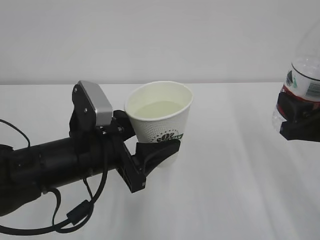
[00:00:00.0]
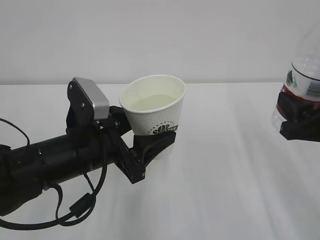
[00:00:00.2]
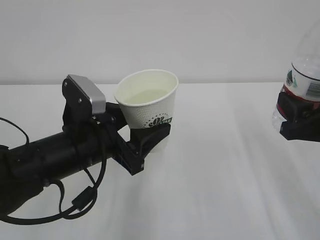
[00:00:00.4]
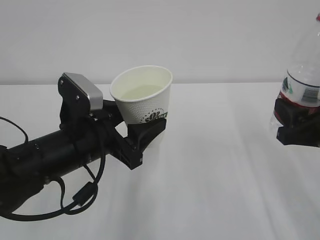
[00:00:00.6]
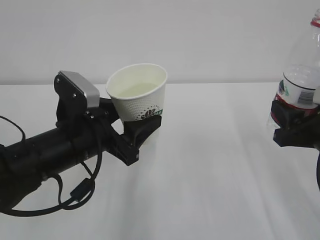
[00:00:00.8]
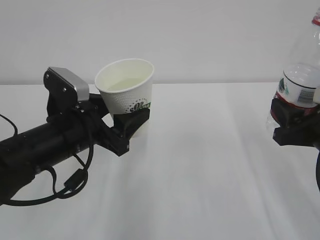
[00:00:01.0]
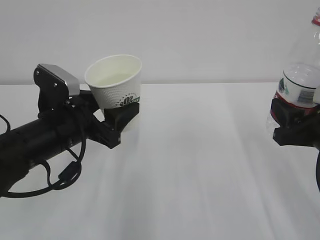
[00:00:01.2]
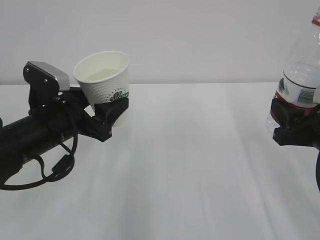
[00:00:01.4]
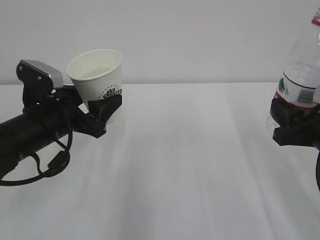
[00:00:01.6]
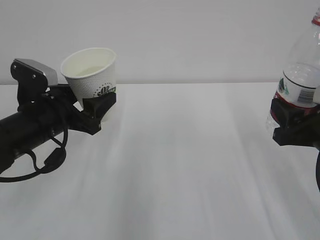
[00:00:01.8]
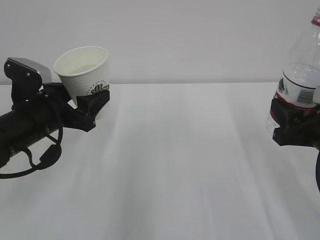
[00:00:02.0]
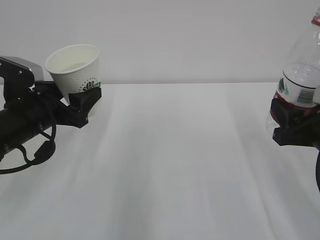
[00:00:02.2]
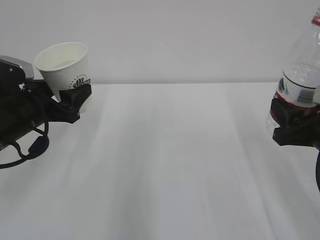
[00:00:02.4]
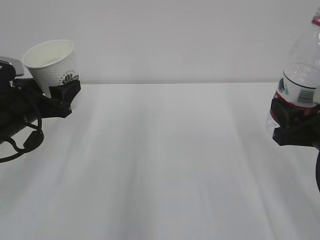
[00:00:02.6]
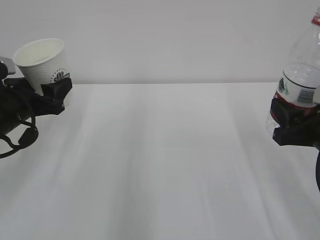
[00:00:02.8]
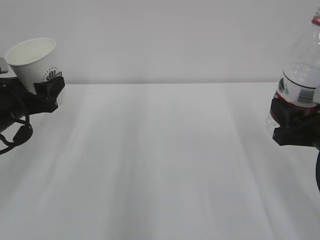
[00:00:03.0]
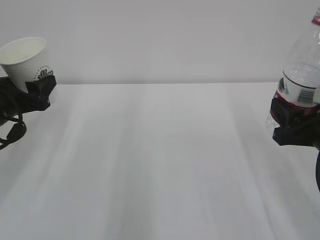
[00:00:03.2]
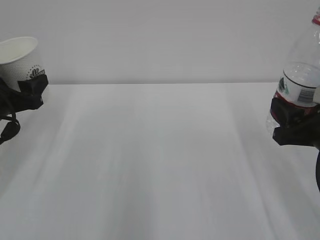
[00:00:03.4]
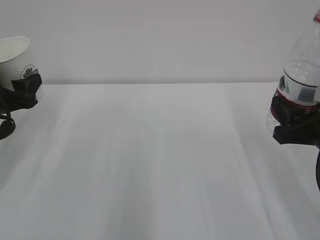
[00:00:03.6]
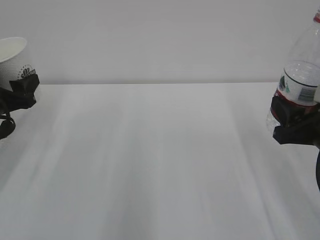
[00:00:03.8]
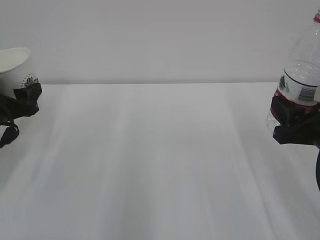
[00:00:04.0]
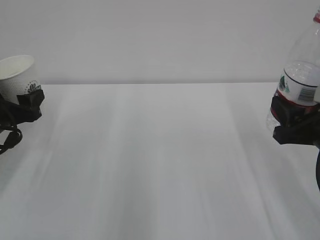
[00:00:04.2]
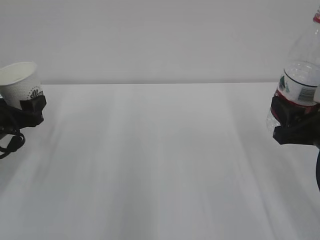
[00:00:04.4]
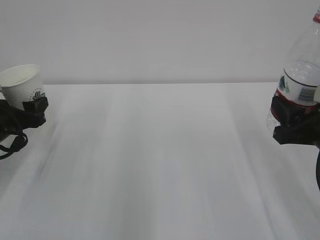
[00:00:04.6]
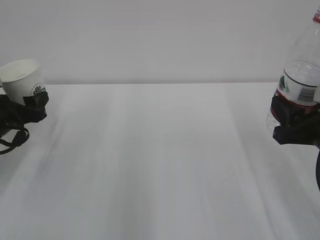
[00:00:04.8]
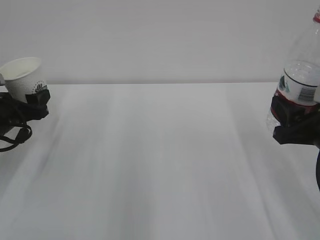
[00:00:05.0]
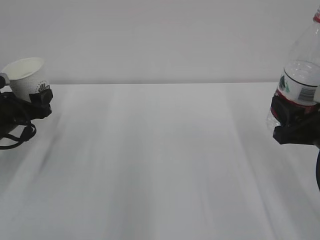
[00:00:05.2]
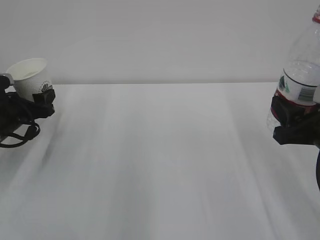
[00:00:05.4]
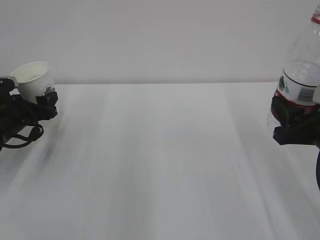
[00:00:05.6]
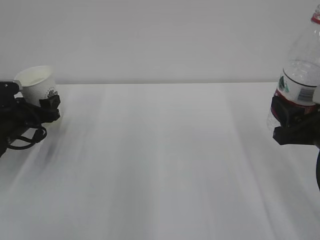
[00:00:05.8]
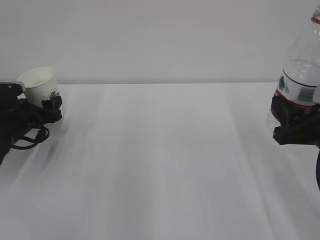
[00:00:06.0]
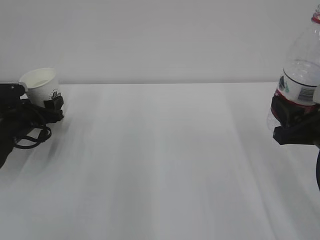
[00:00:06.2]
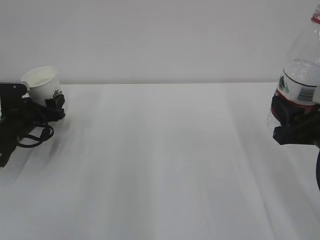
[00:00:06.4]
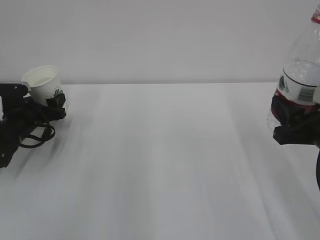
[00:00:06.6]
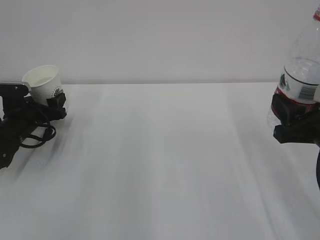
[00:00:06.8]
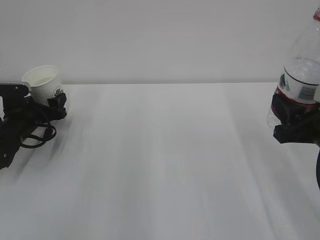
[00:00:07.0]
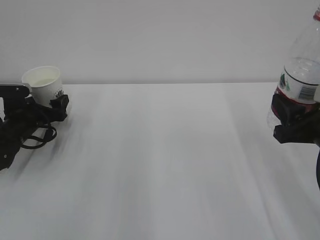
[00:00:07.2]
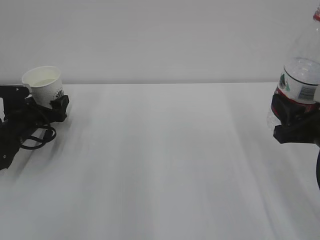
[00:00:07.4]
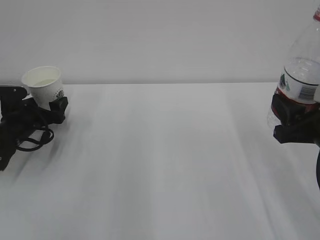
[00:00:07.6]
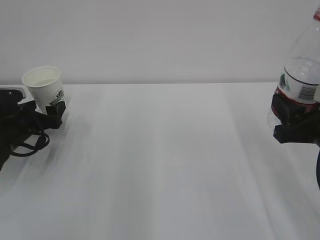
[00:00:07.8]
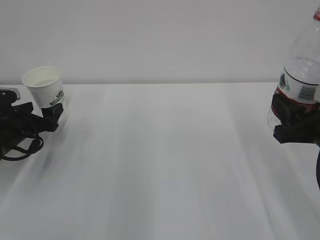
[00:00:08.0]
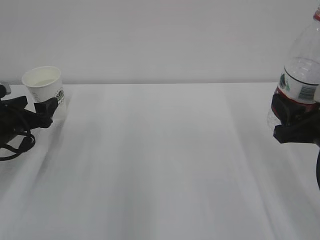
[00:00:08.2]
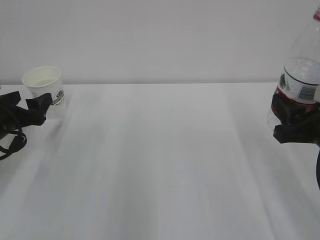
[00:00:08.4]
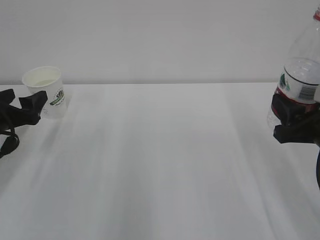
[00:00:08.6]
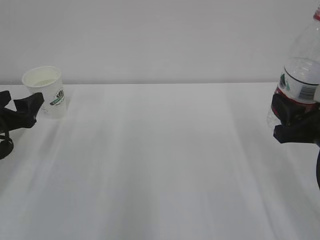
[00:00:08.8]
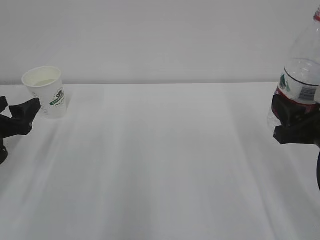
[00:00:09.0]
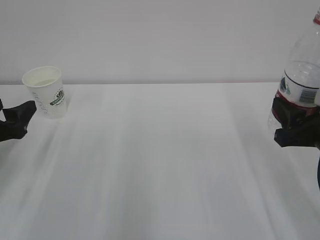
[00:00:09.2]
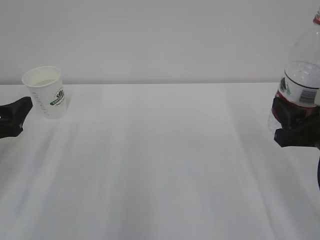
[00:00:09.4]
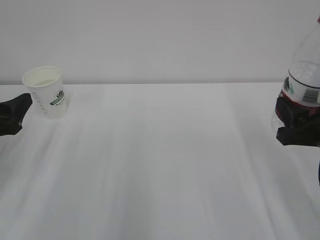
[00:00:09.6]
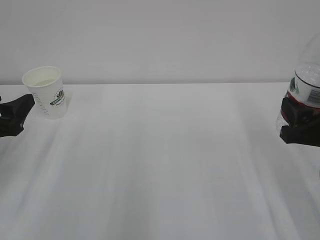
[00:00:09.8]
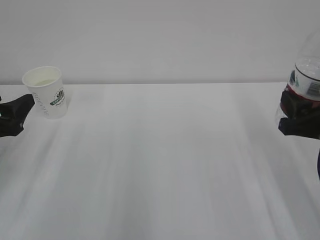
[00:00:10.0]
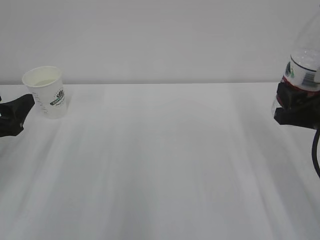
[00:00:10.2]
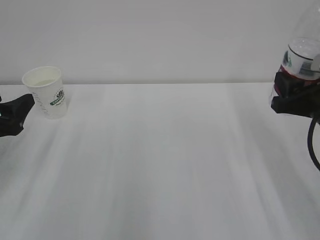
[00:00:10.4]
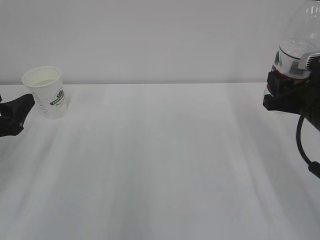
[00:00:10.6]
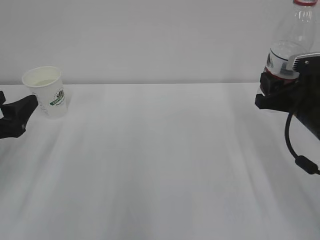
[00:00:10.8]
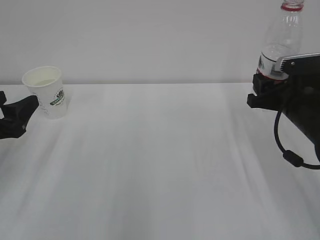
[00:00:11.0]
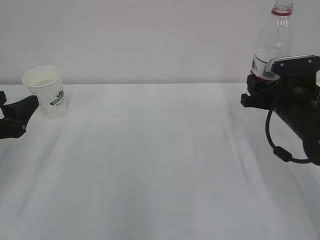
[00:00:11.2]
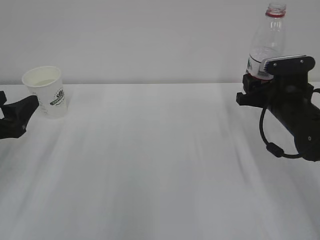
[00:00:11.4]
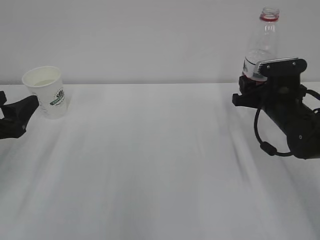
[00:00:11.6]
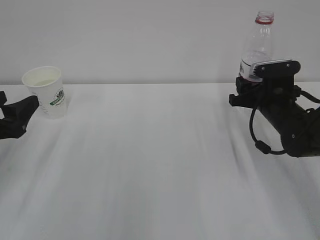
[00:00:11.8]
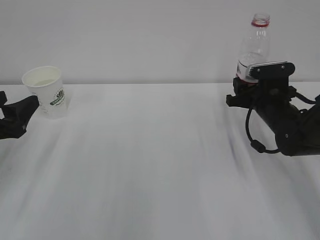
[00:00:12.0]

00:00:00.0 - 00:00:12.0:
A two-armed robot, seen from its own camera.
00:00:00.0 - 00:00:01.6: The left gripper heads to the left and forward, covering approximately 10 cm.
00:00:01.6 - 00:00:03.0: The left gripper is displaced to the left by approximately 10 cm.
00:00:03.0 - 00:00:04.4: The left gripper shifts by roughly 5 cm.
00:00:04.4 - 00:00:06.0: The left gripper goes about 10 cm forward and downward.
00:00:06.0 - 00:00:07.6: The left gripper opens its fingers.
00:00:07.6 - 00:00:09.0: The left gripper shifts about 15 cm backward and upward.
00:00:09.0 - 00:00:10.4: There are only small adjustments of the grippers.
00:00:10.4 - 00:00:12.0: The right gripper is displaced forward and downward by about 15 cm.

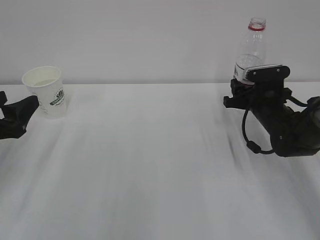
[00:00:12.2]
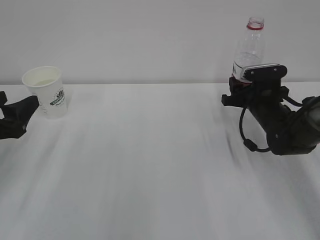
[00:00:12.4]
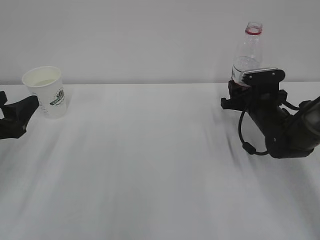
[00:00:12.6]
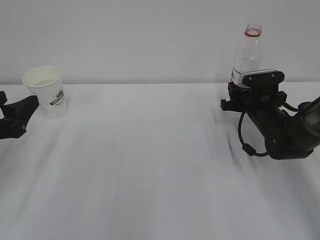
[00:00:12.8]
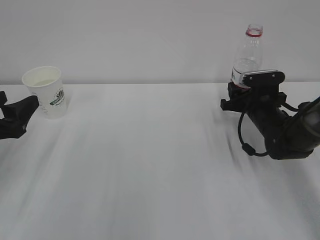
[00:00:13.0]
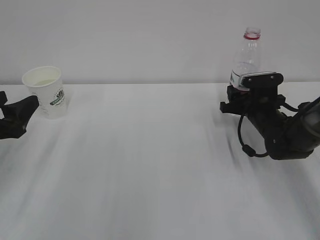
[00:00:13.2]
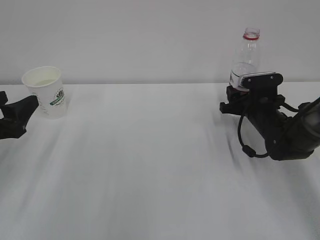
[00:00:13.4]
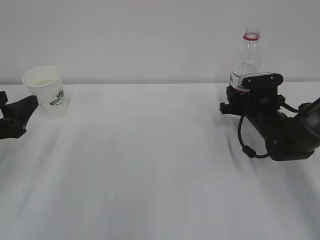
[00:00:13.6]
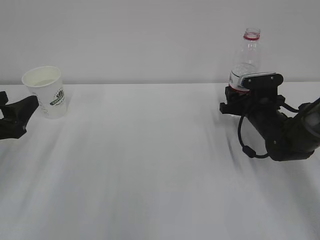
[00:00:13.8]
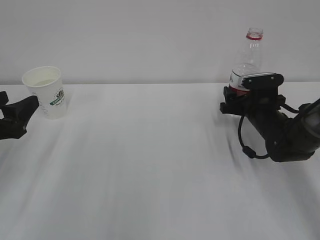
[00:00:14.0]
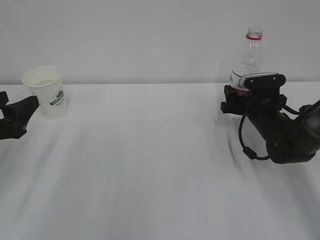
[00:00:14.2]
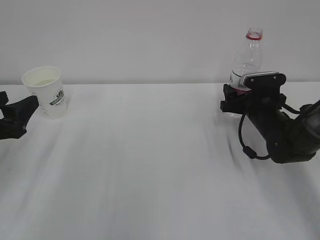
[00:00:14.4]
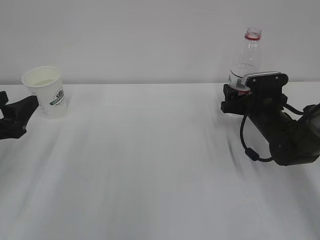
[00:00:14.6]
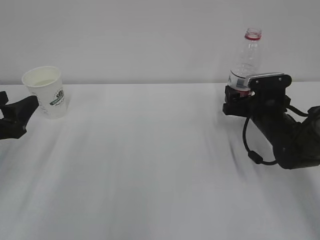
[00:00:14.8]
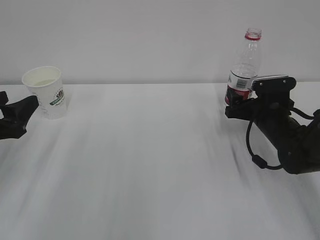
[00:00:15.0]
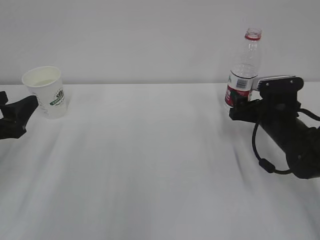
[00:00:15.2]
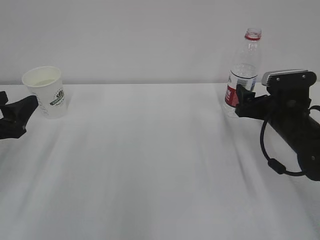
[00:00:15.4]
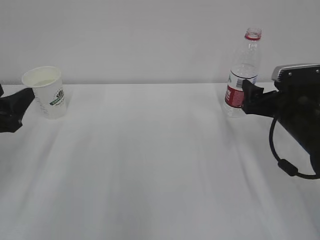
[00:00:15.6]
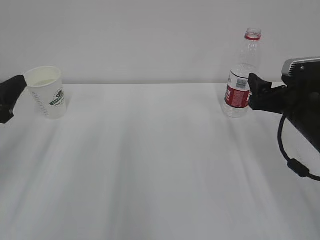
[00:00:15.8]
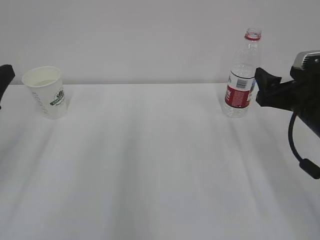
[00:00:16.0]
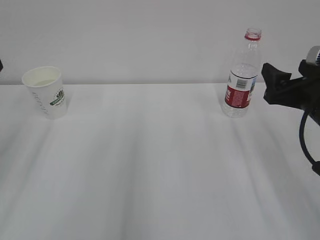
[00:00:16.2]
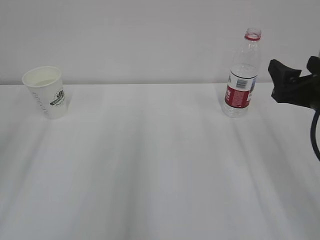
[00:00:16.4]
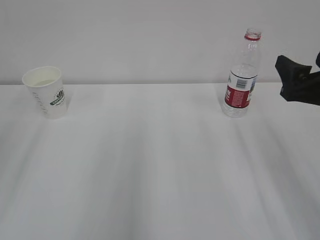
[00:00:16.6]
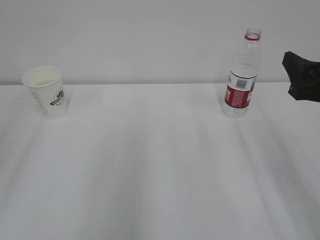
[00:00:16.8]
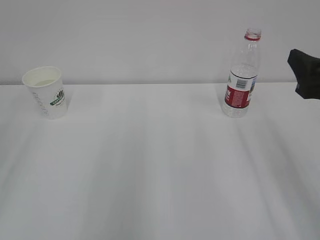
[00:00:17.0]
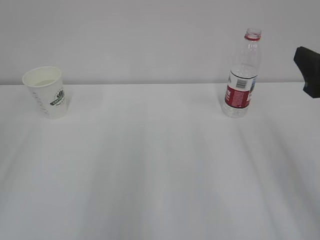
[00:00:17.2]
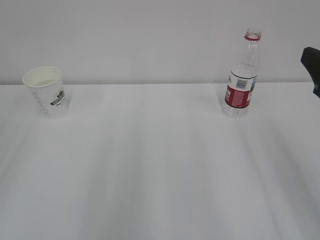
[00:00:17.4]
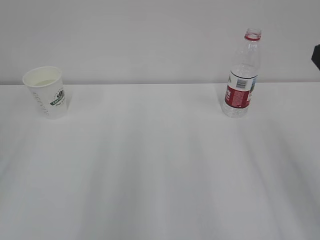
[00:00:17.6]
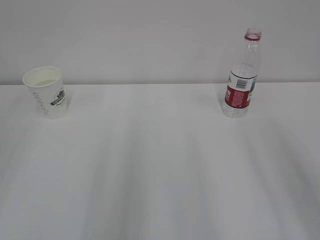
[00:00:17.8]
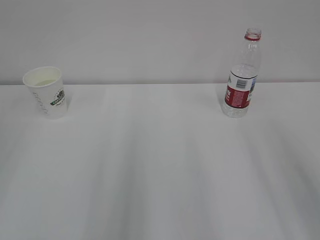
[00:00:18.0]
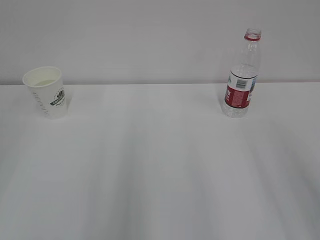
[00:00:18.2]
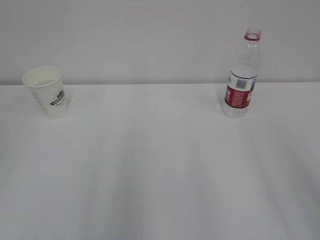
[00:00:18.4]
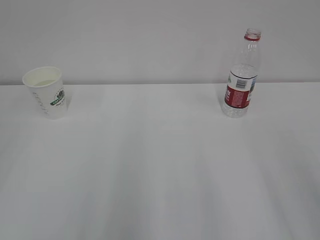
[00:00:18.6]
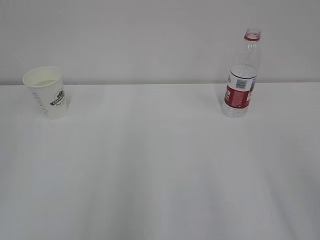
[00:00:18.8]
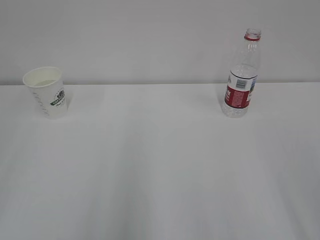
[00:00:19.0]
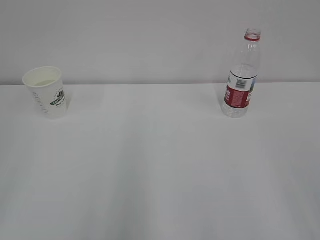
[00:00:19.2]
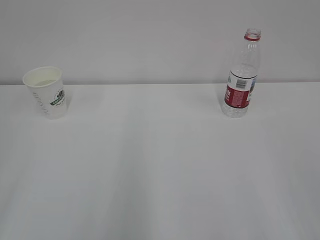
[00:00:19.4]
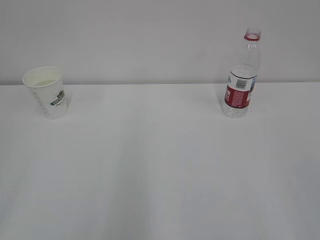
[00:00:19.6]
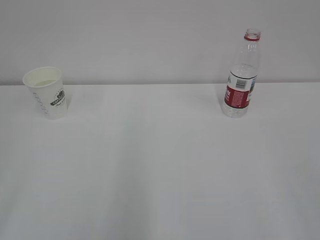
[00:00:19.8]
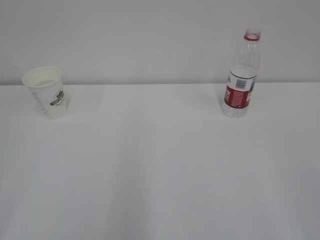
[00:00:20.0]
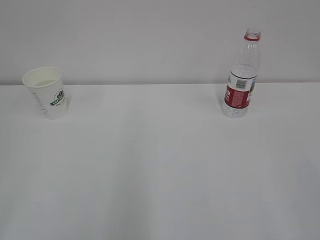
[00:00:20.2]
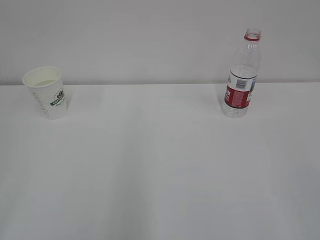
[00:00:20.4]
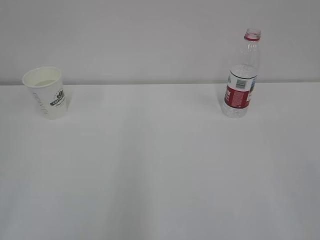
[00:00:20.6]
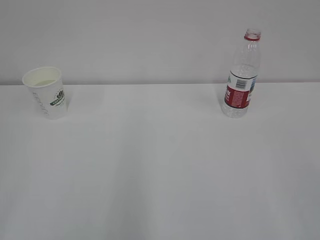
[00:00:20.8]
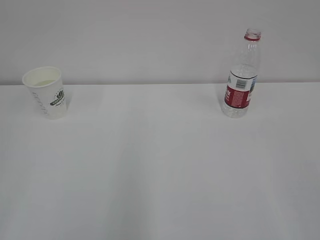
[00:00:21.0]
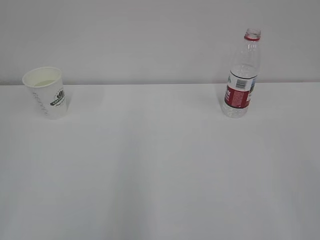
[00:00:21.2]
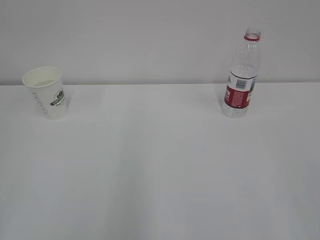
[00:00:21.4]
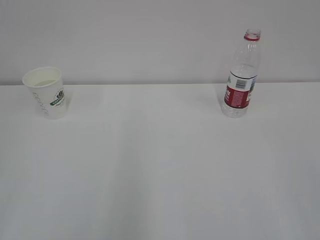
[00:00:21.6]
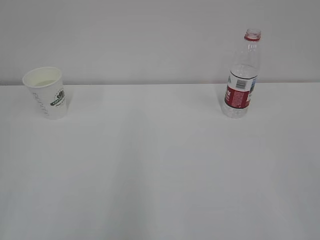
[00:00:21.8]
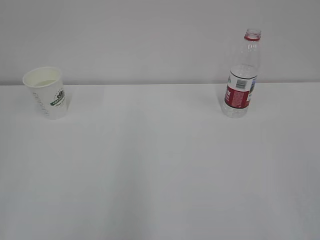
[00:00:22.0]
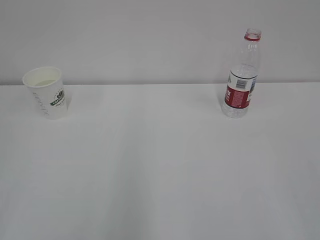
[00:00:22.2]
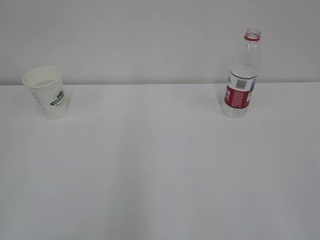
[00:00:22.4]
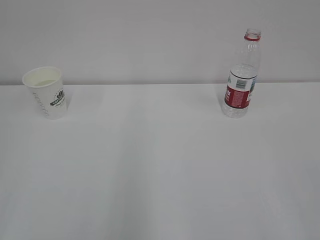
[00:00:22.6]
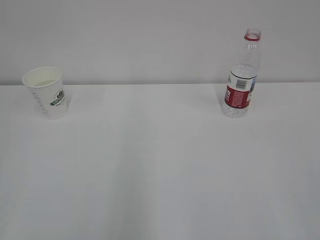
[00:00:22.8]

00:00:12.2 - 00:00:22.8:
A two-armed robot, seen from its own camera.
00:00:12.2 - 00:00:13.8: The right gripper opens.
00:00:13.8 - 00:00:15.2: The right gripper heads backward, covering some 5 cm, and opens its fingers.
00:00:15.2 - 00:00:16.8: Both grippers move upward and backward, some 15 cm.
00:00:16.8 - 00:00:18.2: The right gripper shifts some 15 cm backward and upward.
00:00:19.8 - 00:00:21.2: Both grippers stay about where they are.
